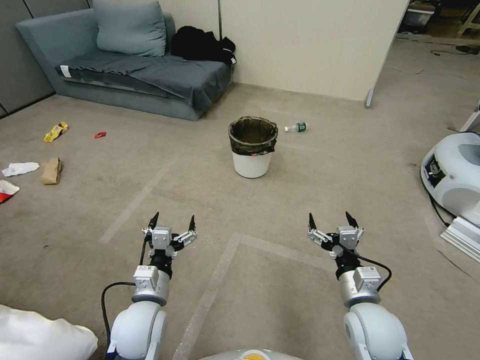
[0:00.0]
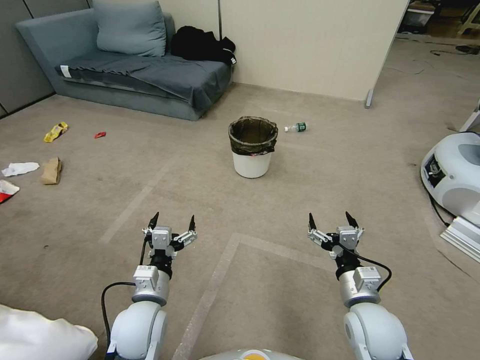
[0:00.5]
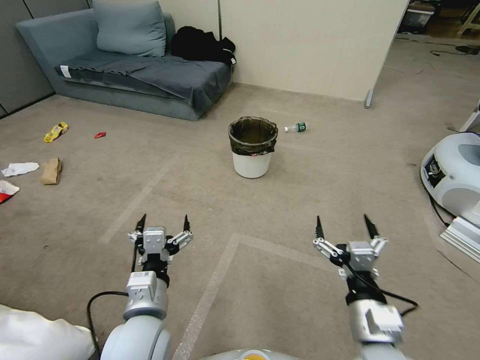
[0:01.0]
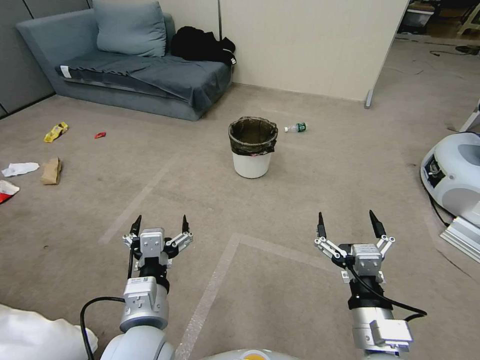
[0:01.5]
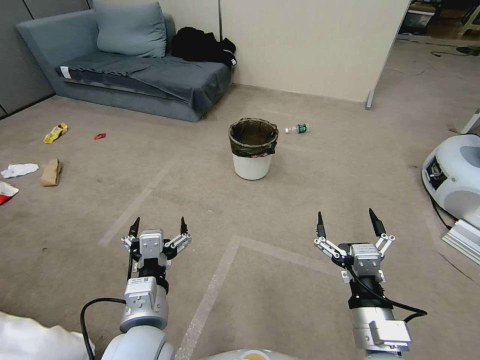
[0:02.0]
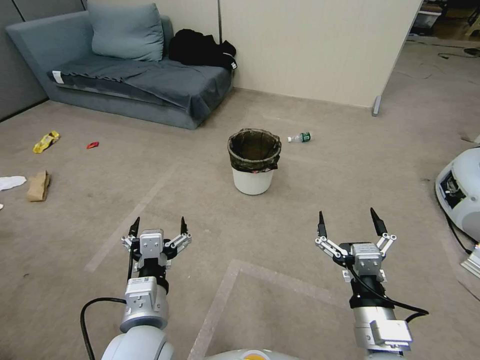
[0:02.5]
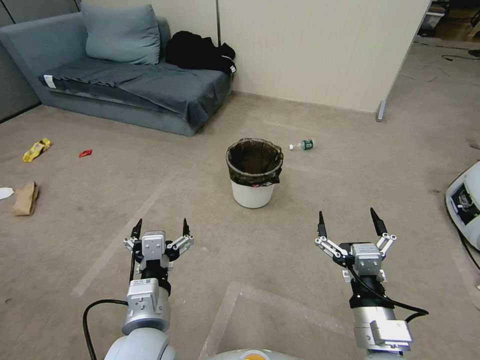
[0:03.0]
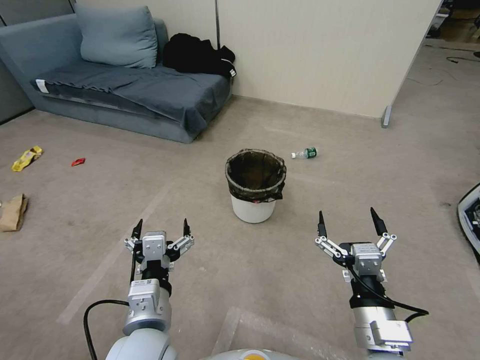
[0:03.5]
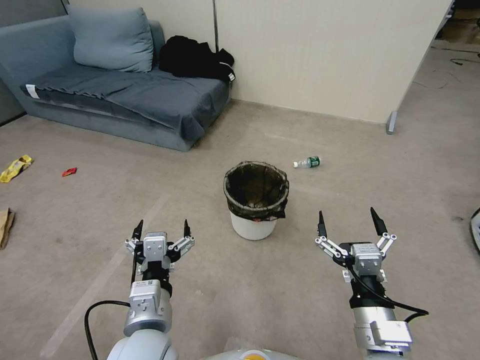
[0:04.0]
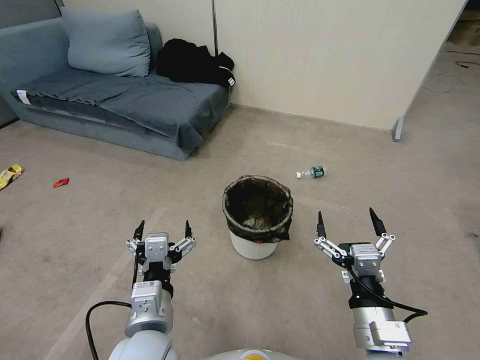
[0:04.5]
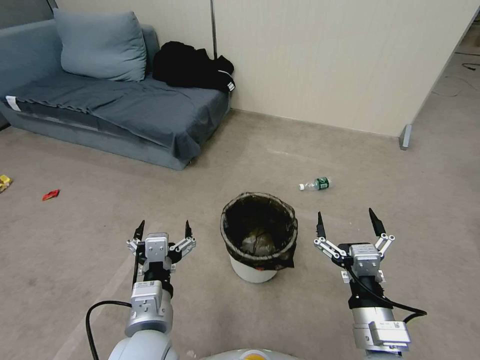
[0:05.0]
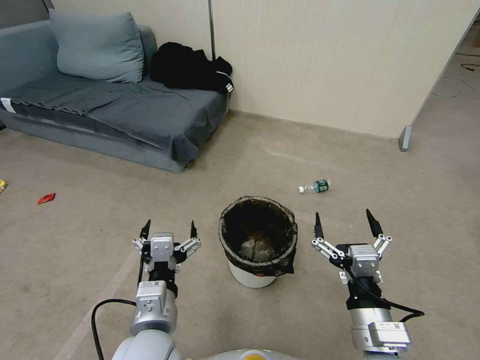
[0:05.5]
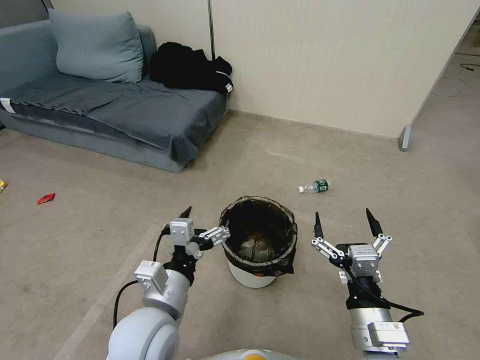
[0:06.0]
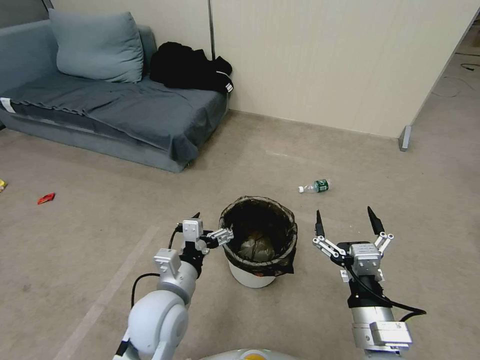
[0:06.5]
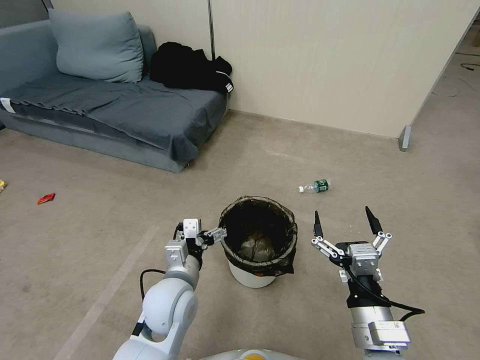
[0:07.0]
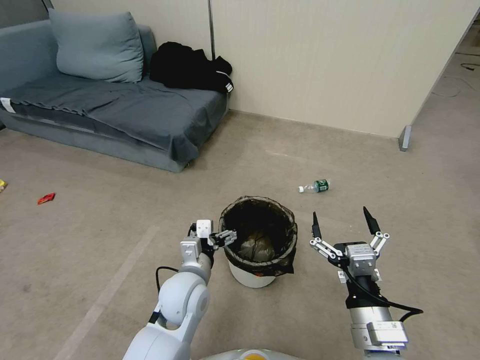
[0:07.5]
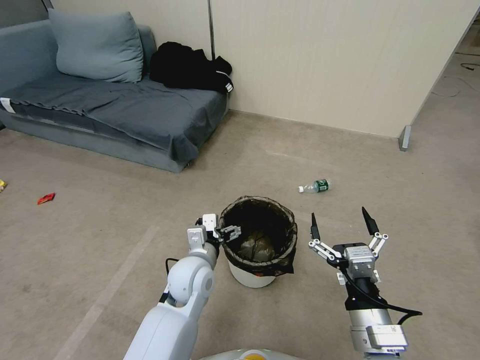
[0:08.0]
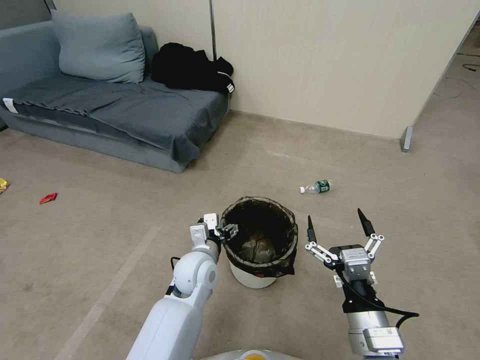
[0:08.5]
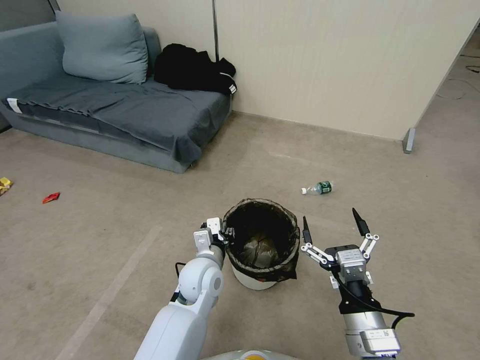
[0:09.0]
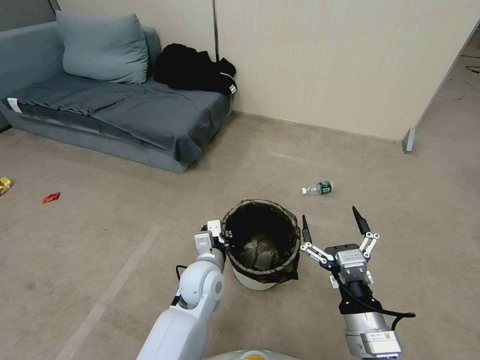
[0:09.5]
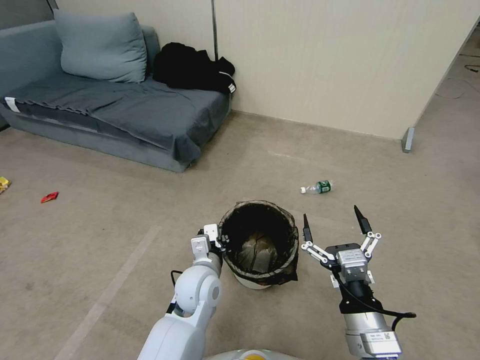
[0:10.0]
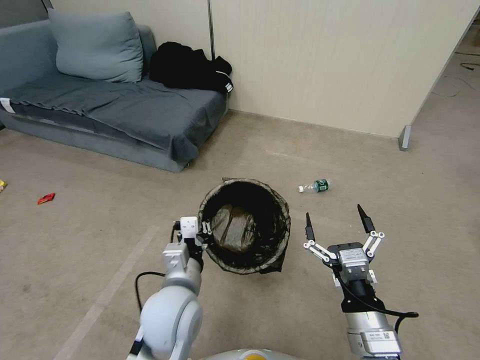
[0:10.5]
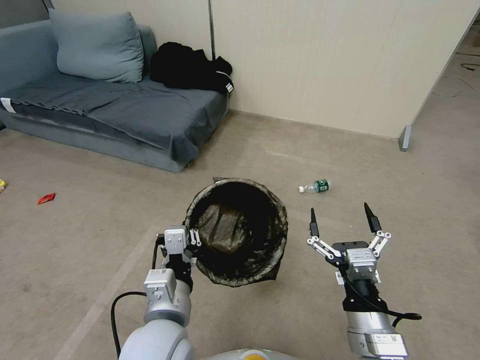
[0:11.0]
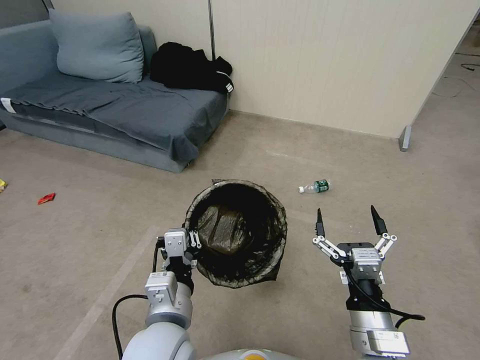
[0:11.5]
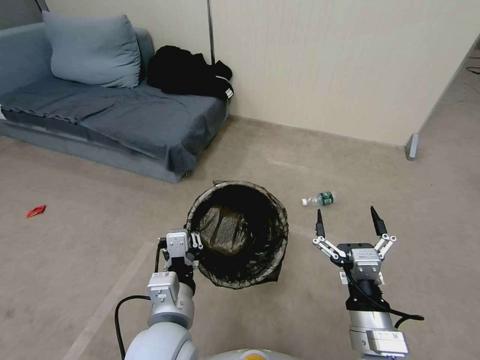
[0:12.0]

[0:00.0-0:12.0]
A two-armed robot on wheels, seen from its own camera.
Task of the whole recording: Pick up the trash bin, then pick up the garbage from the floor and place it into the trash bin.
0:06.0 to 0:08.0: The left gripper is displaced forward and downward by about 15 cm.
0:08.0 to 0:10.0: The left gripper closes up.
0:10.0 to 0:12.0: The left gripper goes approximately 15 cm backward and upward.

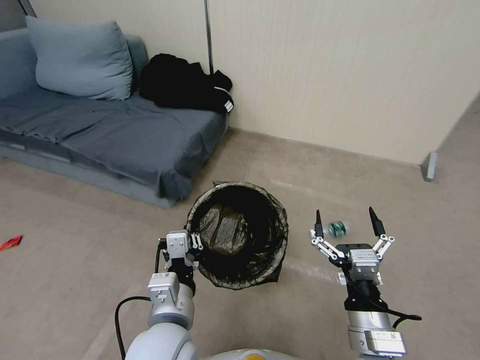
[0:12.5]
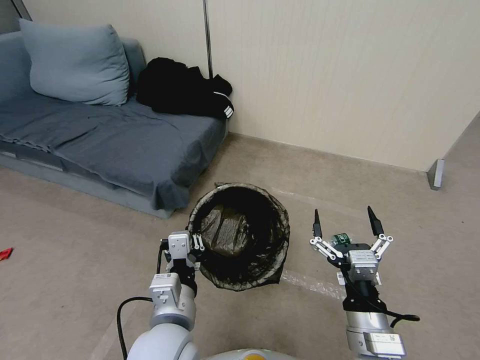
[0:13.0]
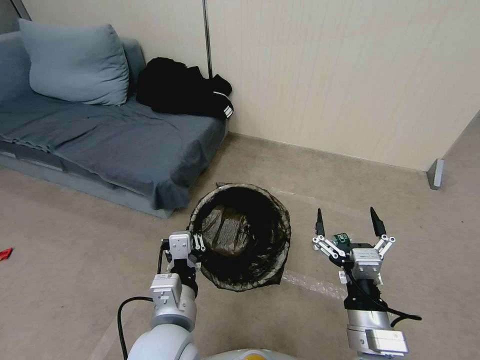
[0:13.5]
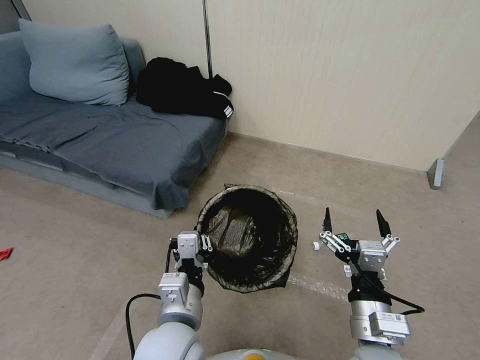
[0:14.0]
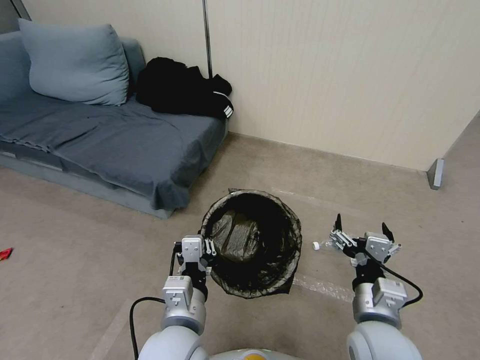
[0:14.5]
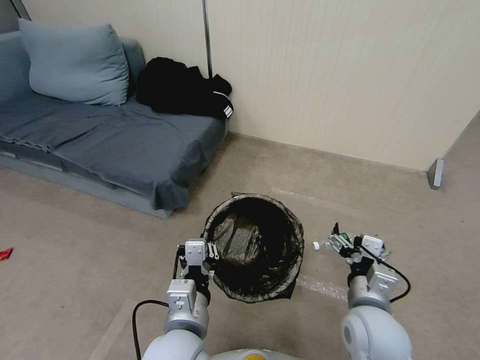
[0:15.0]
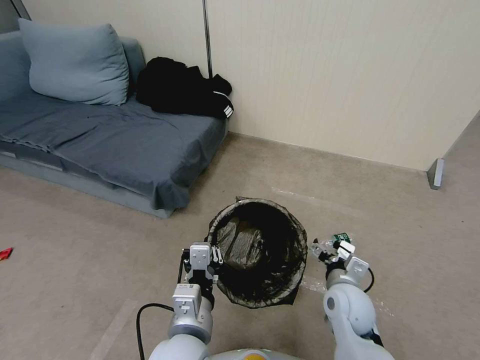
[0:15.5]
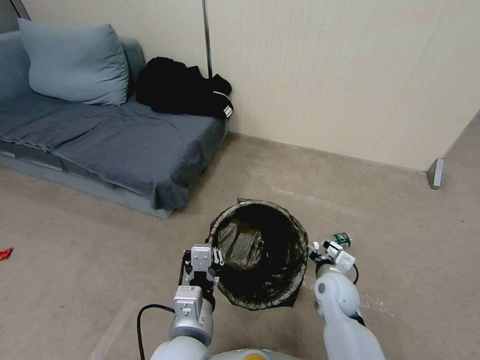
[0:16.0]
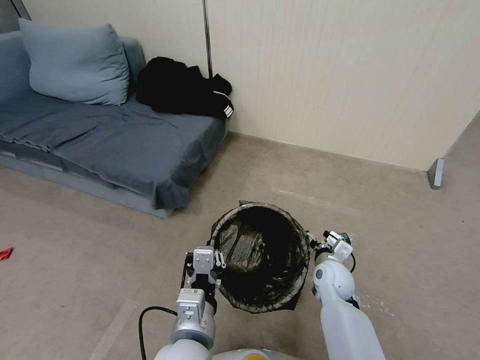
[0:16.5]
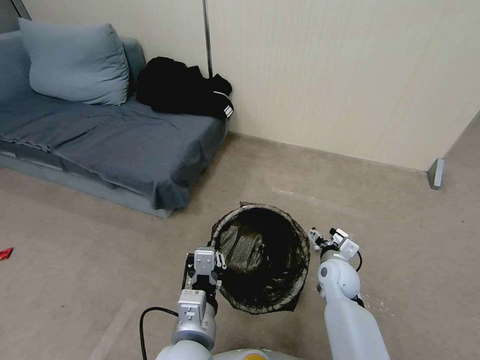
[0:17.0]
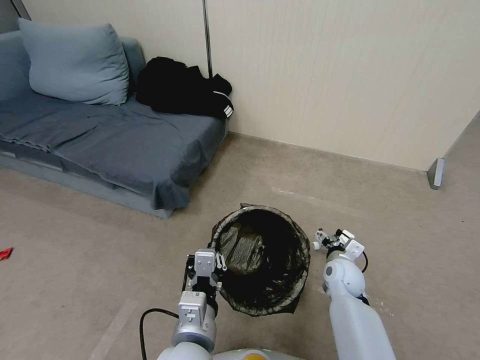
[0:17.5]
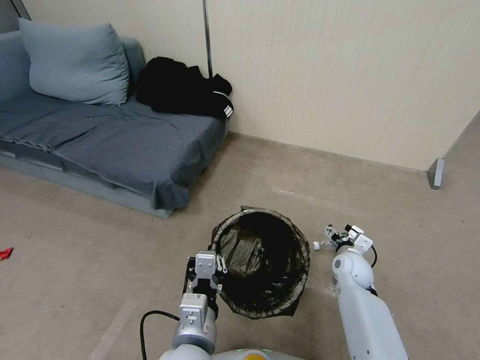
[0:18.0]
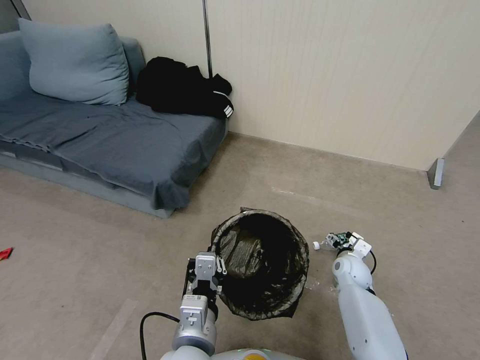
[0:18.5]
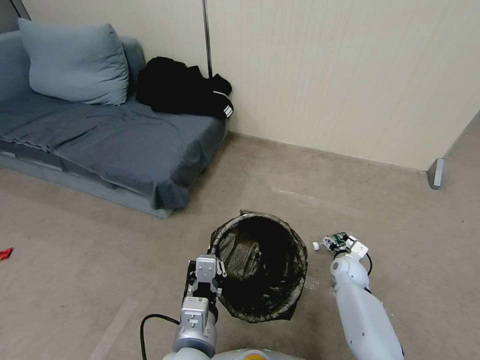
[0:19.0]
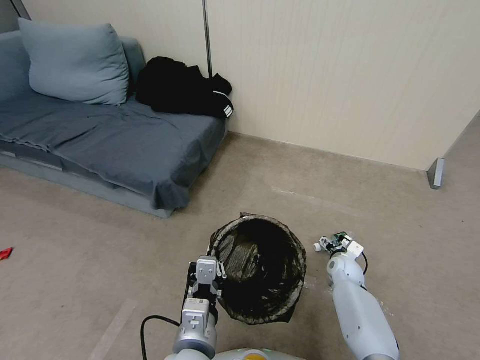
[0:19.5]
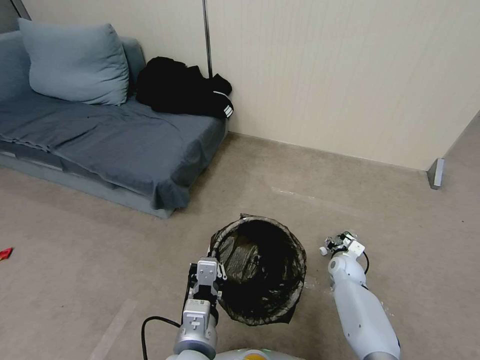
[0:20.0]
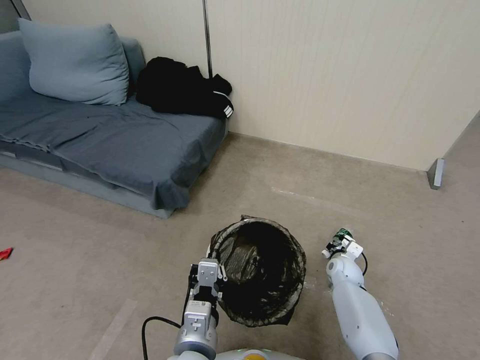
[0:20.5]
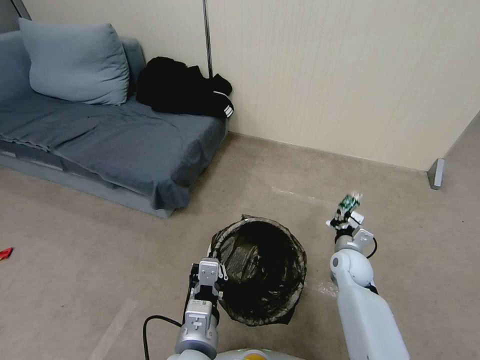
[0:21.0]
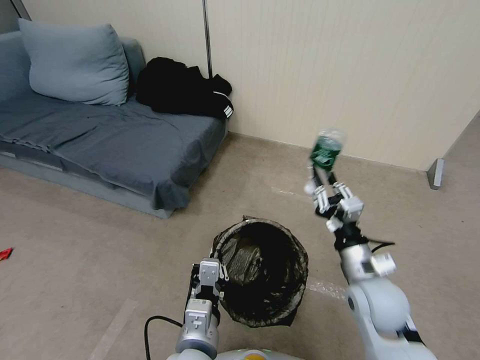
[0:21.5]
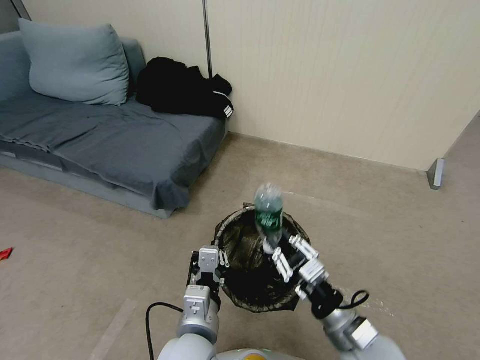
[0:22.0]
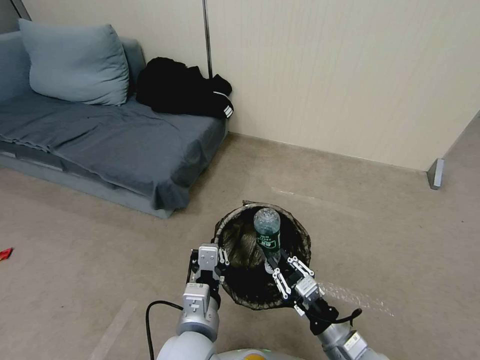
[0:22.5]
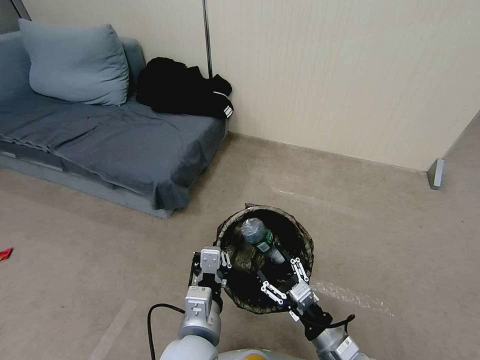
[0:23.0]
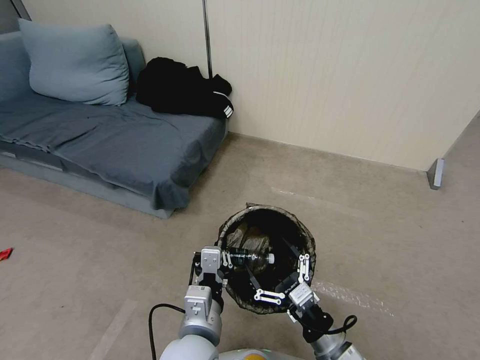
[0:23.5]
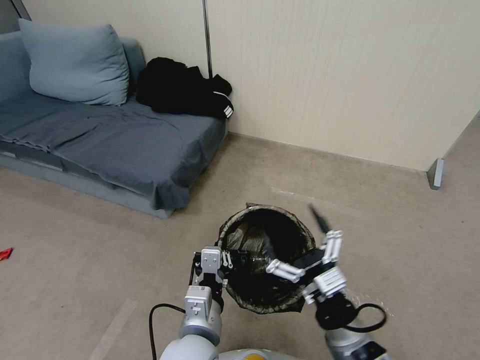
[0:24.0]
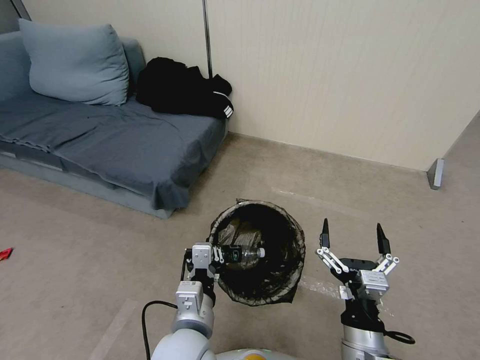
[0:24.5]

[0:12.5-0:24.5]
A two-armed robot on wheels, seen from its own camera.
Task of the whole recording: Pick up the trash bin, then pick up the garbage from the floor and place it into the trash bin.
0:14.5 to 0:16.5: The right gripper shifts approximately 20 cm forward and downward.
0:16.5 to 0:18.5: The right gripper moves to the right and downward, roughly 10 cm.
0:18.5 to 0:20.5: The right gripper closes up.
0:20.5 to 0:22.5: The right gripper goes about 30 cm backward and upward.
0:22.5 to 0:24.5: The right gripper heads upward, covering approximately 5 cm, and opens its fingers.

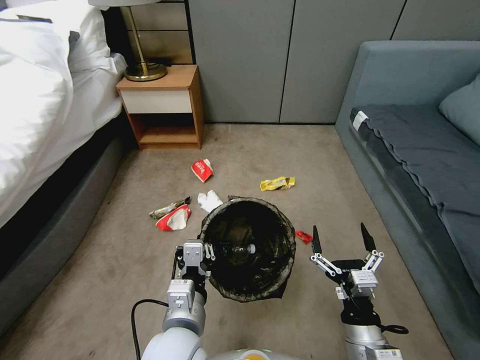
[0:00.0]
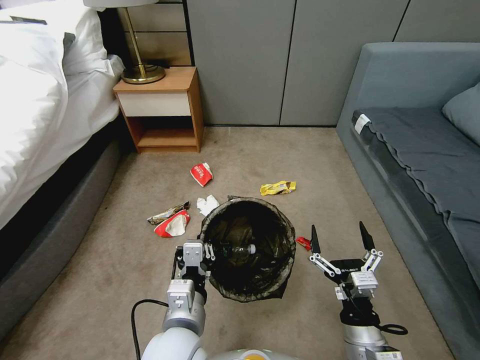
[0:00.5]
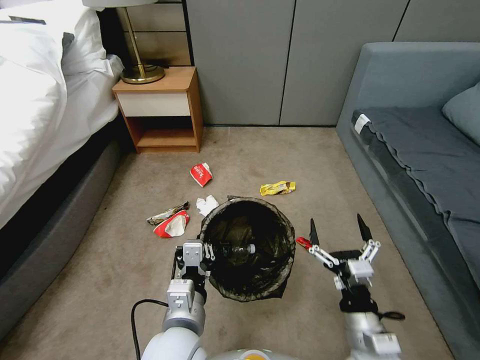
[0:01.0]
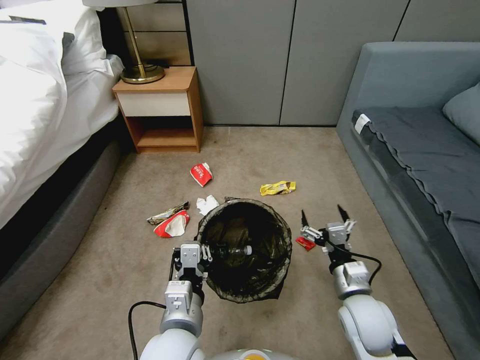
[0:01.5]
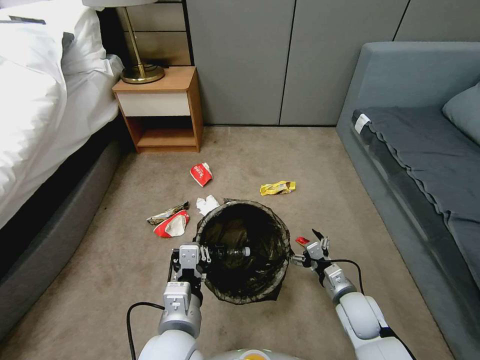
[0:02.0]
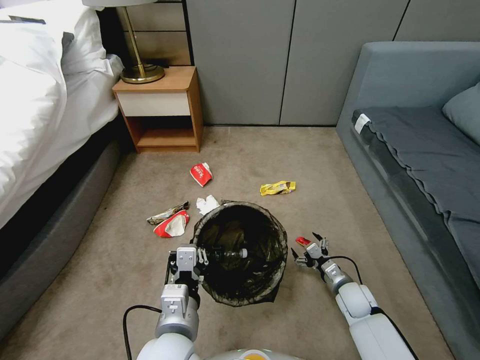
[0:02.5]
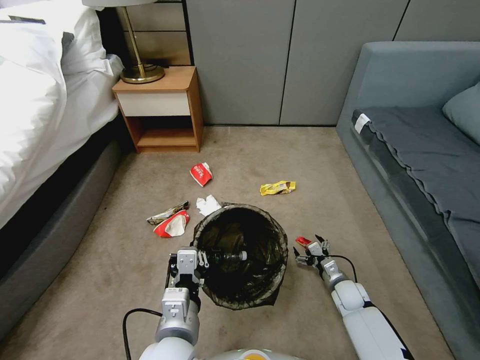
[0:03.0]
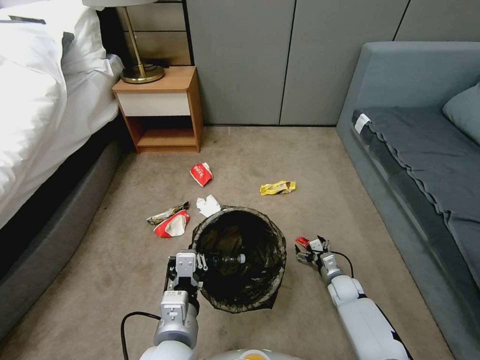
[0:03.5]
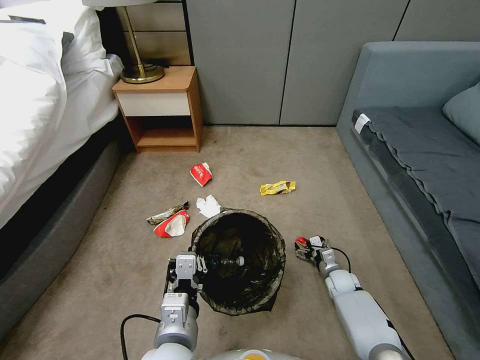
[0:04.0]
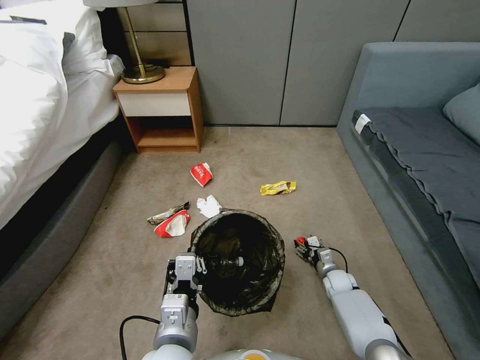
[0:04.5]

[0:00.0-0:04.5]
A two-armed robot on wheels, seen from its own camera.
Task of the whole recording: Pick up the trash bin, then pick up the garbage from the floor and place it into the trash bin.
0:00.0 to 0:02.0: The right gripper is displaced forward and downward by roughly 15 cm.
0:02.0 to 0:04.5: The right gripper goes about 20 cm downward and forward.
